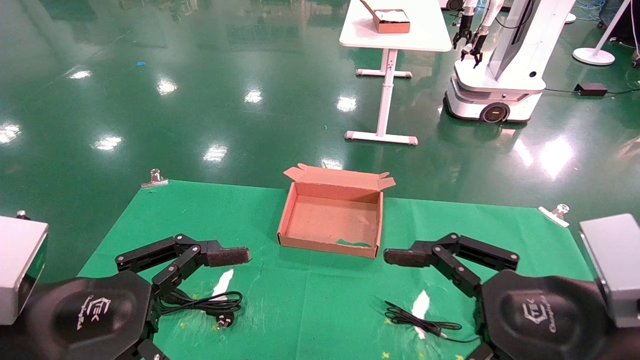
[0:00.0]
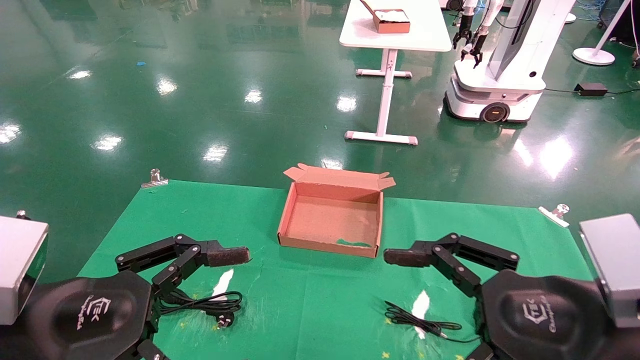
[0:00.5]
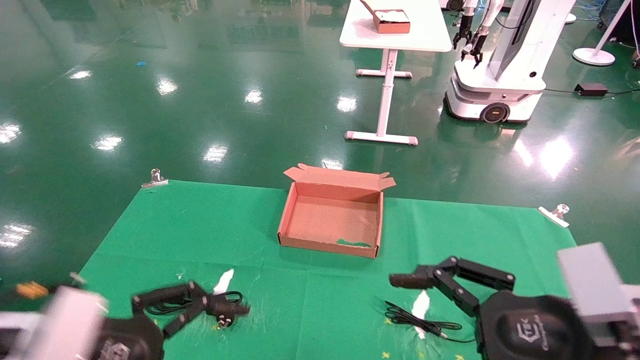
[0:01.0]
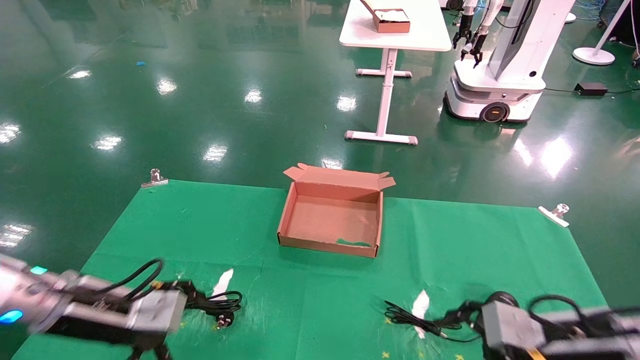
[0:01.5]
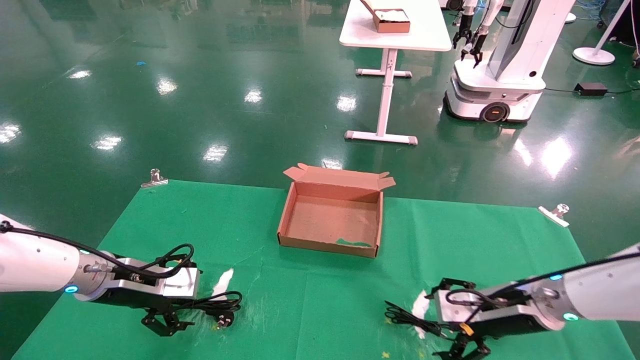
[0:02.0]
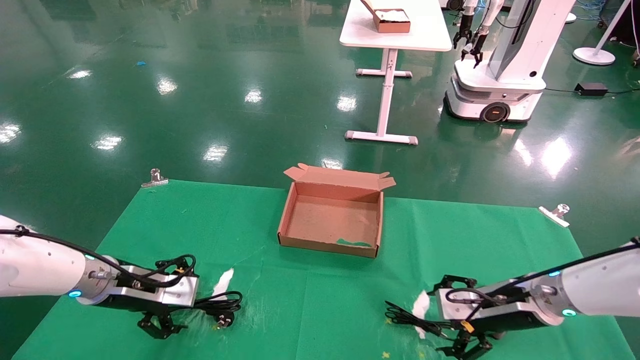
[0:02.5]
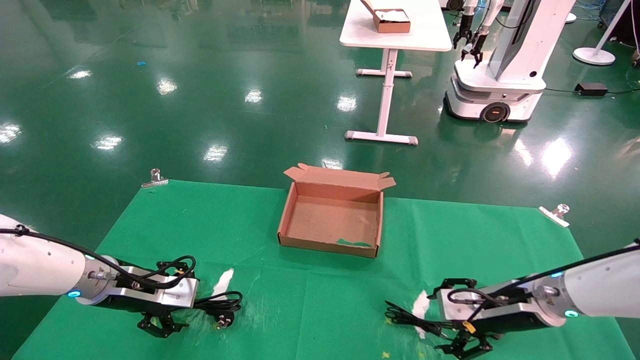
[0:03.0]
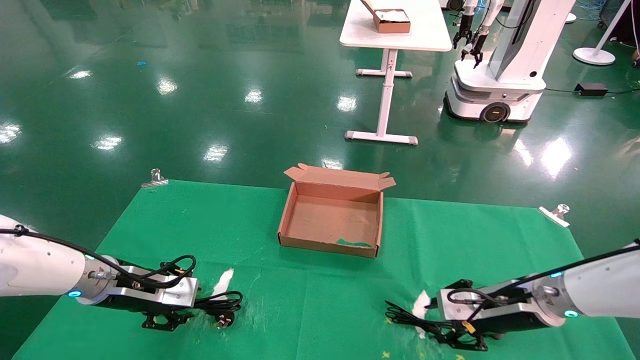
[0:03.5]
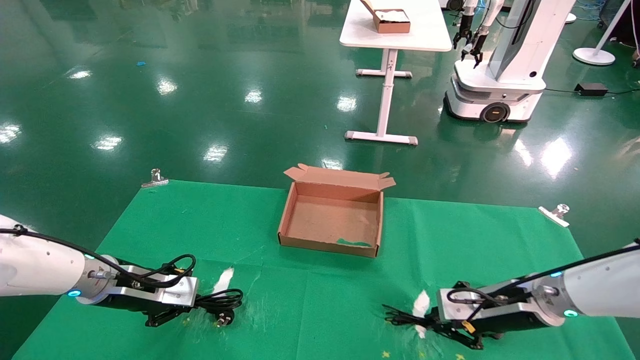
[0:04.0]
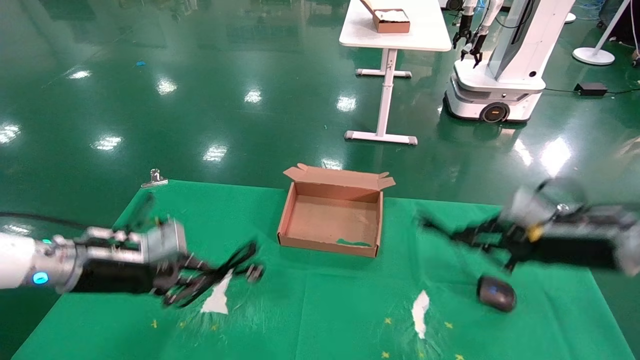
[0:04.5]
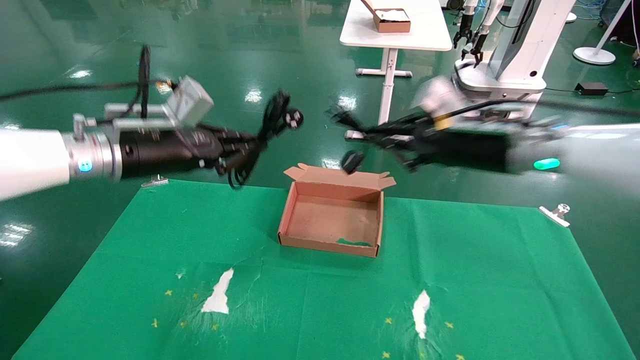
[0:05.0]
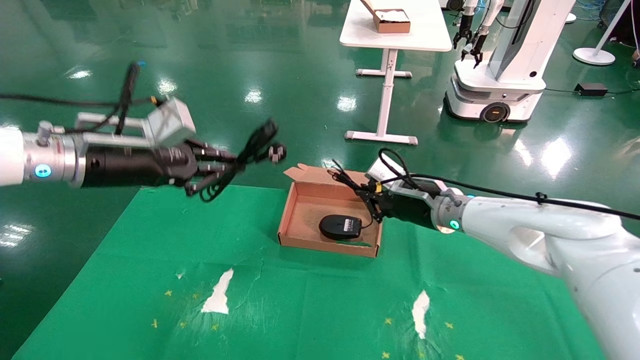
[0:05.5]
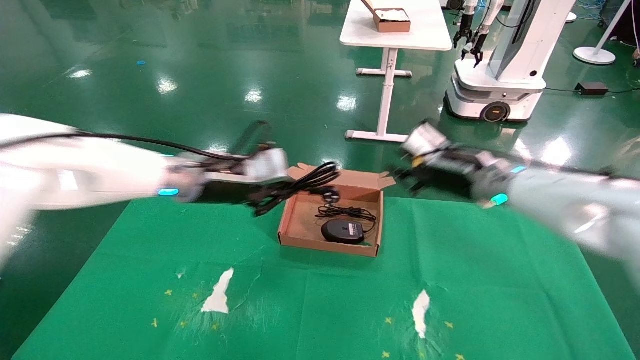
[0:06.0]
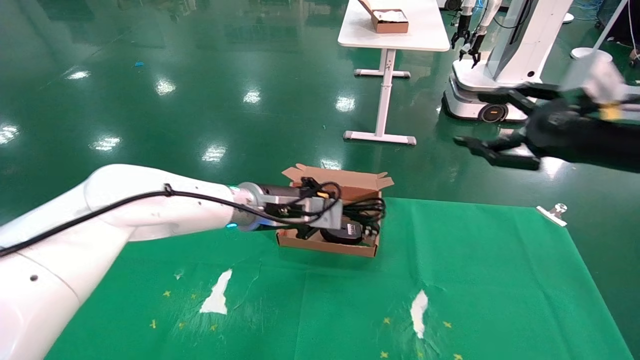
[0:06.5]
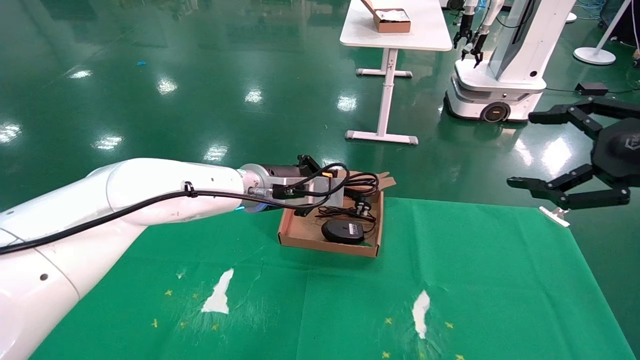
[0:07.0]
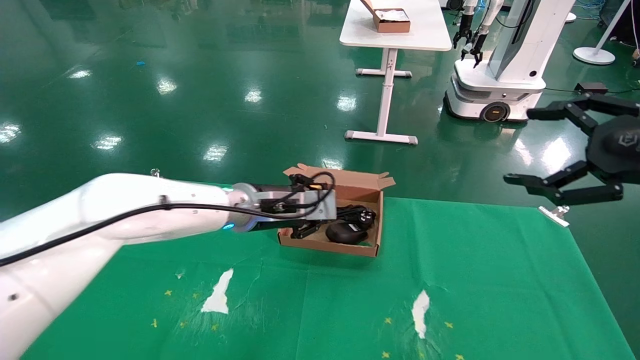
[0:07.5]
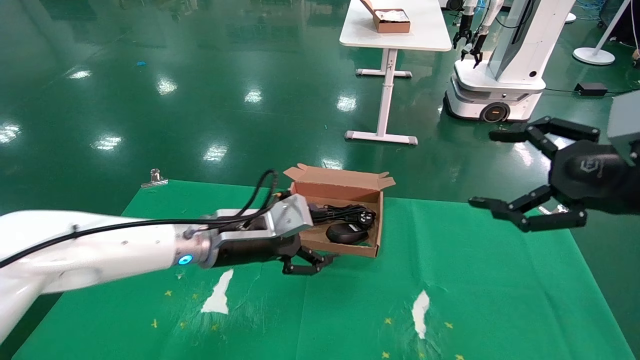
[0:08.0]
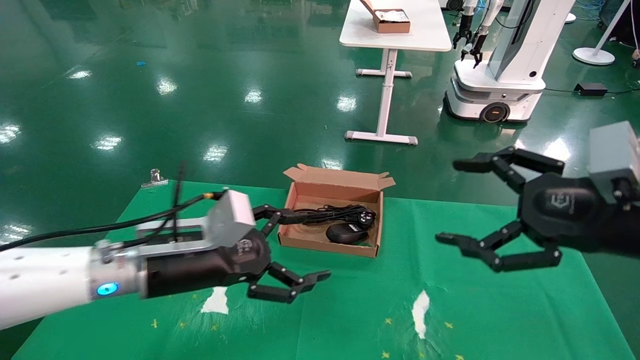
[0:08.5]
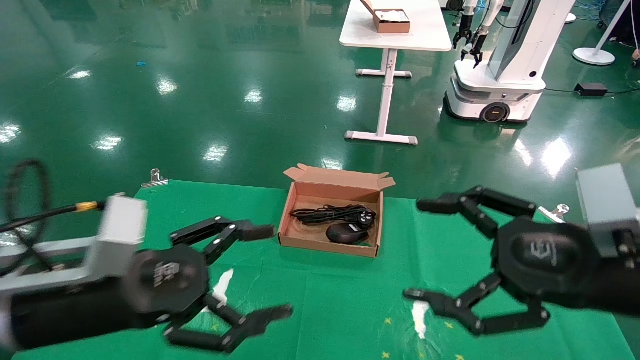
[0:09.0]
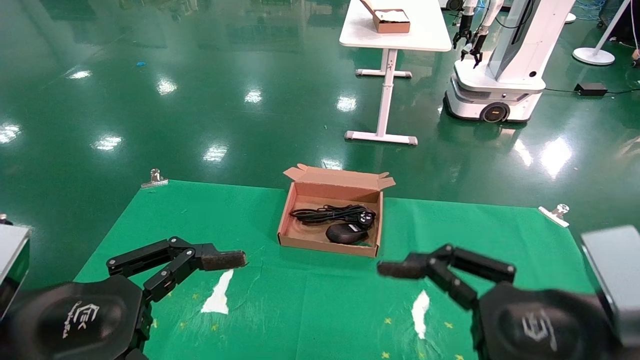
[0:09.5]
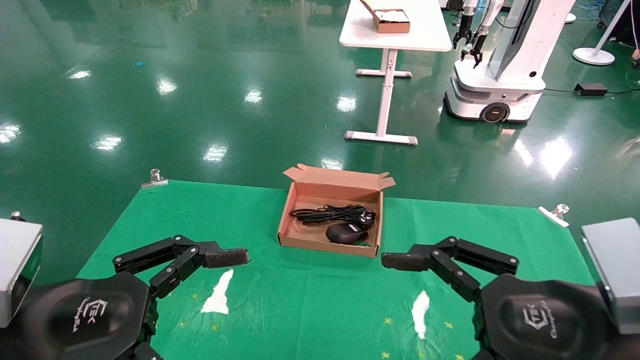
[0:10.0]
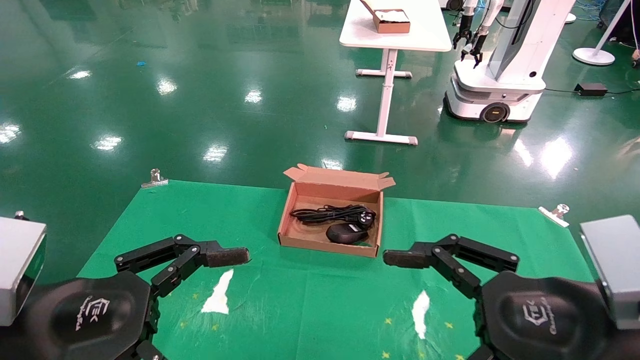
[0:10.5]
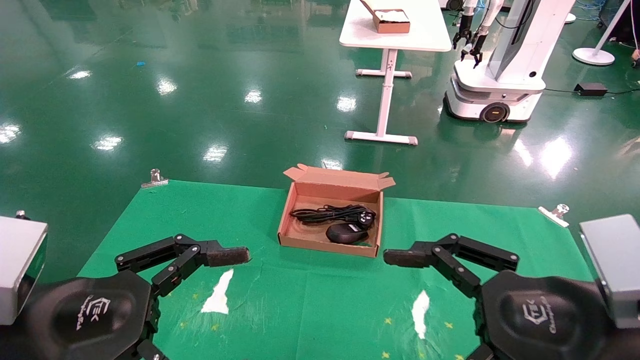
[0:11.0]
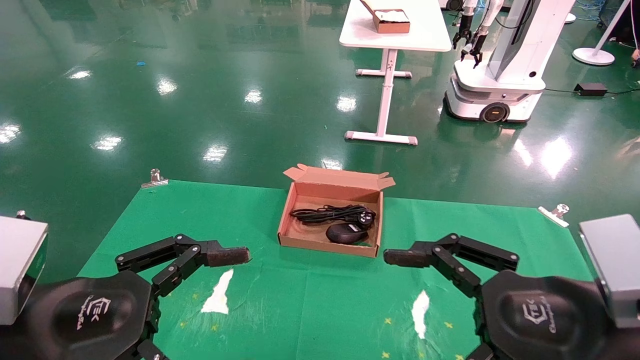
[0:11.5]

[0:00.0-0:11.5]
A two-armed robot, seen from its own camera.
Step, 0:01.0 to 0:03.5: Grab and lift both the mouse and power cord from the accessory packaging area at the same time.
Step, 0:04.0 to 0:07.5: Place the mouse and power cord into the box.
0:00.0 to 0:02.0: The left gripper is displaced forward by some 25 cm, while the right gripper goes roughly 25 cm forward and downward.
0:02.0 to 0:04.0: The right gripper closes up. The left gripper closes.
0:04.0 to 0:06.0: The left gripper shifts some 20 cm upward and to the right. Meanwhile the right gripper moves up and down over about 20 cm, changing direction 2 times.
0:06.0 to 0:07.5: The left gripper heads to the right, covering about 10 cm; the right gripper moves backward and to the right, approximately 25 cm, and opens its fingers.
0:07.5 to 0:09.5: The right gripper moves to the left, downward and backward, some 20 cm. Meanwhile the left gripper moves backward and to the left, approximately 30 cm, and opens its fingers.
0:09.5 to 0:11.5: Both grippers stay about where they are.

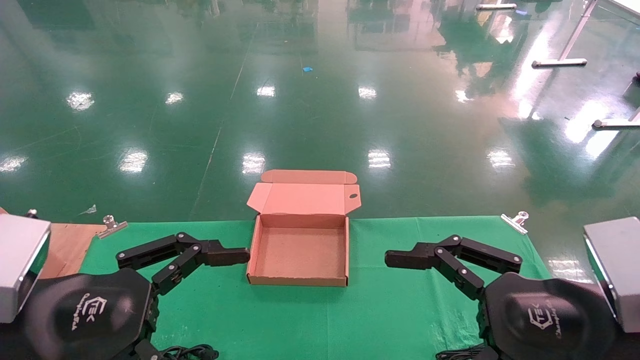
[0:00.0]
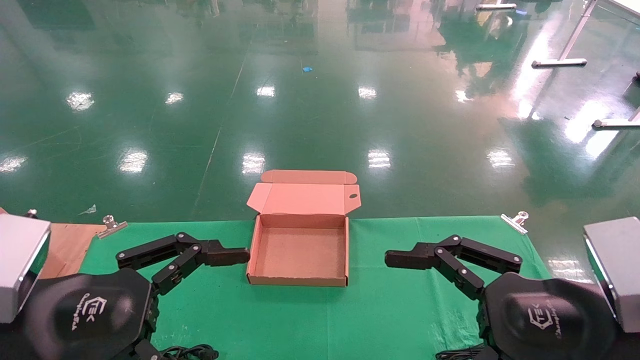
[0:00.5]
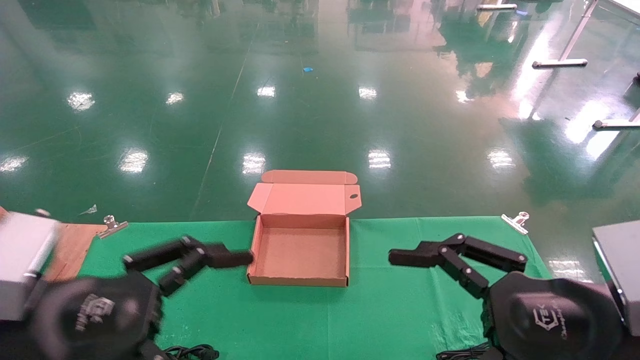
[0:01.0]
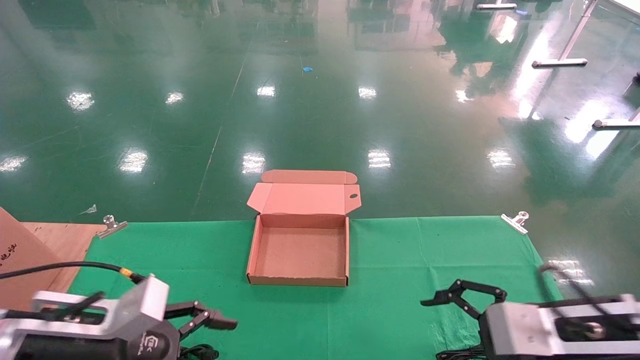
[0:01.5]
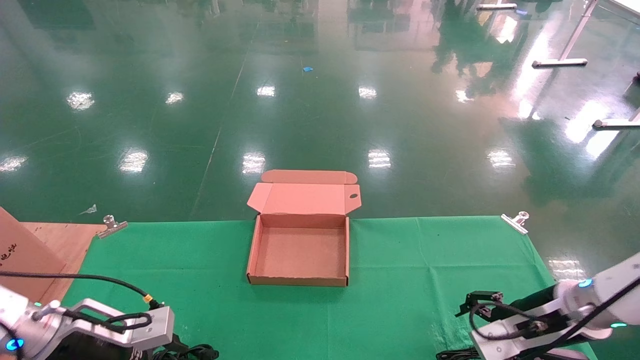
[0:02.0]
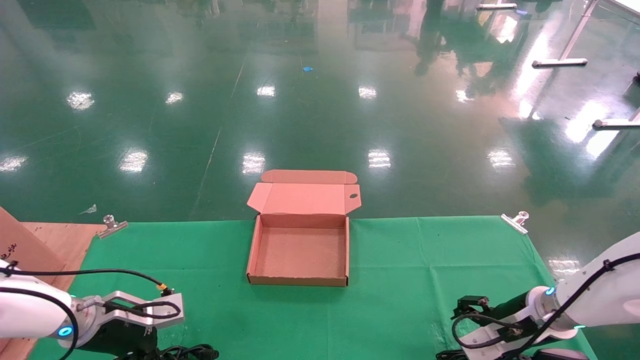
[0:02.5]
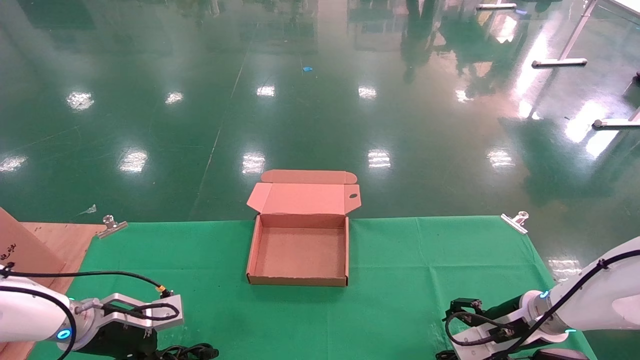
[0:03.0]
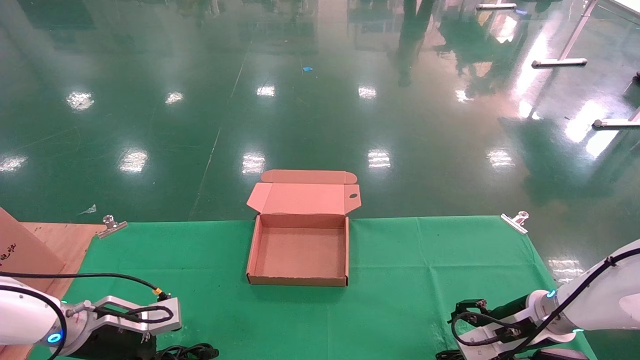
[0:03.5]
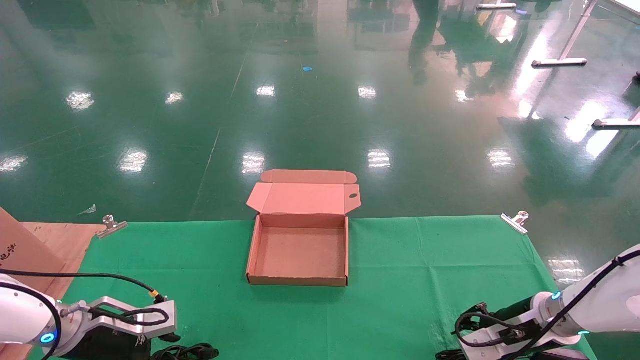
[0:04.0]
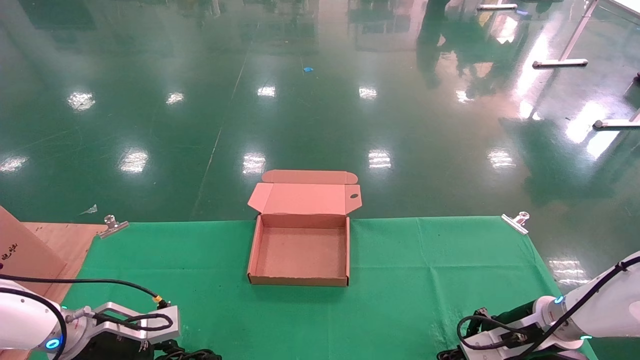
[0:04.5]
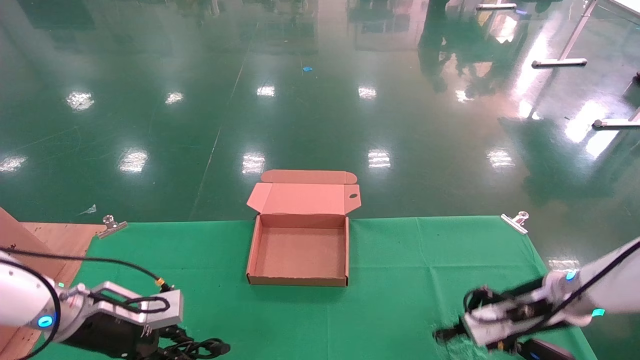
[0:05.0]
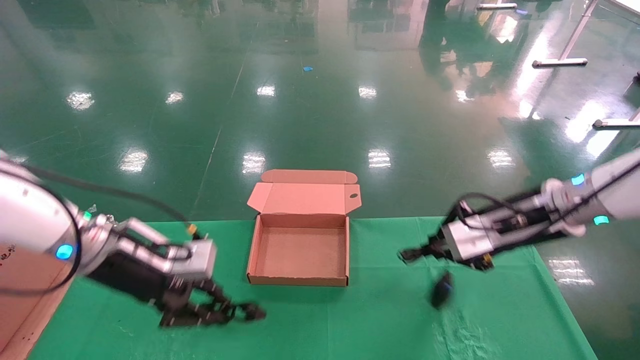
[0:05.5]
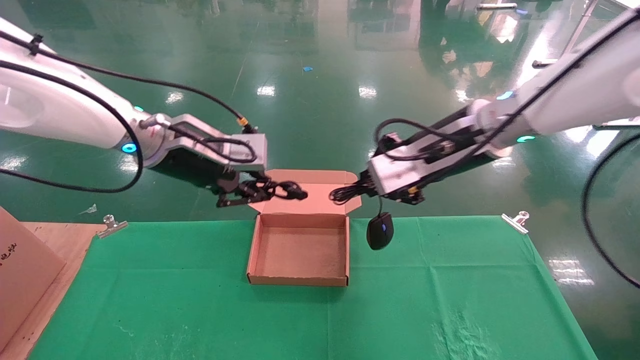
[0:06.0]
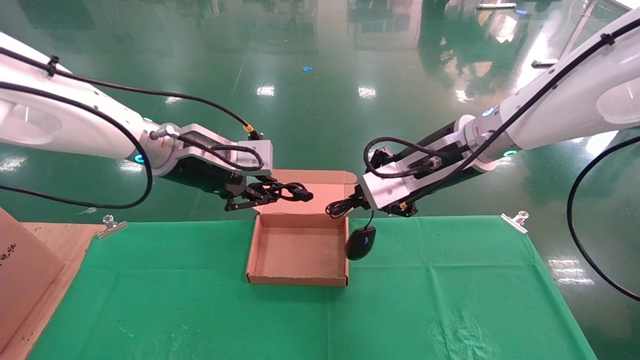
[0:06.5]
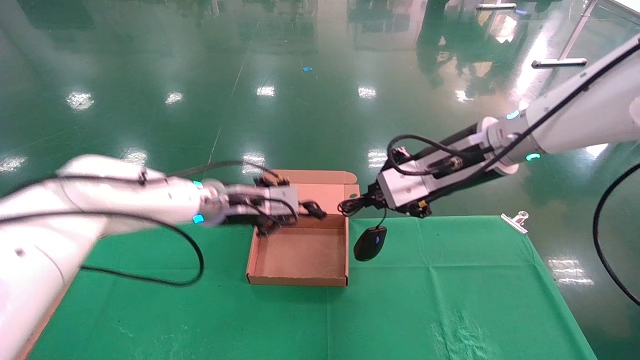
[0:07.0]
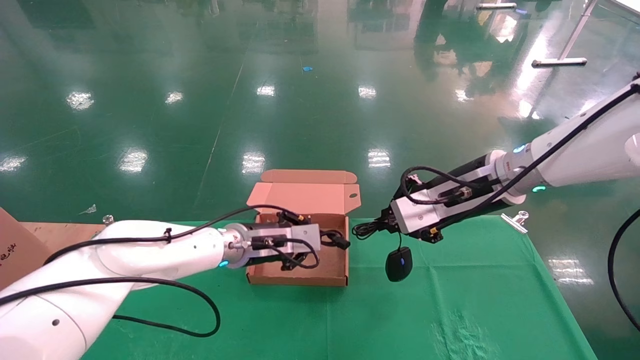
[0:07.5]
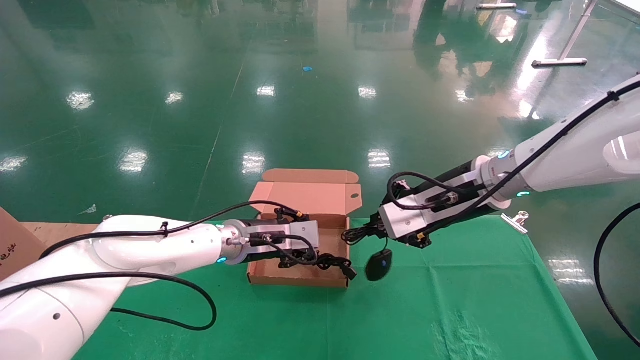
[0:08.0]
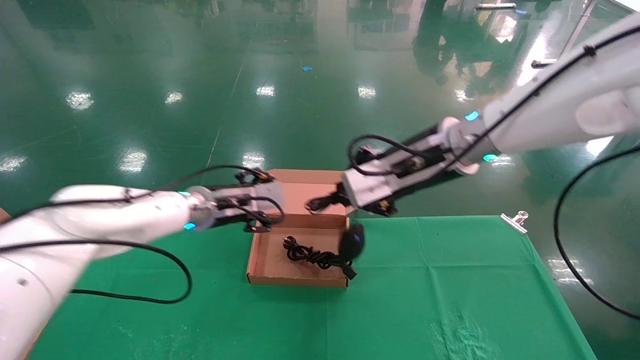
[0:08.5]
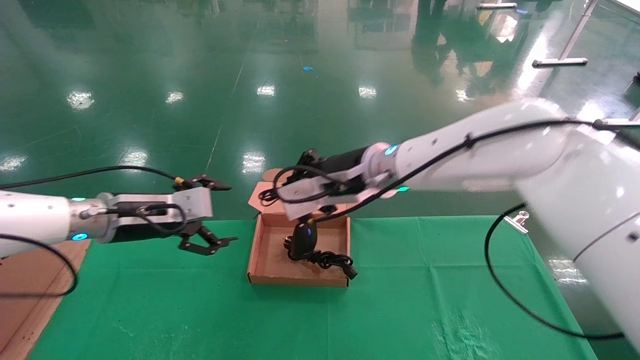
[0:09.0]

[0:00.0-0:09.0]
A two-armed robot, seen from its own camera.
Step, 0:01.0 to 0:05.0: Grab and lift both the mouse and power cord from the accessory packaging area at the same time.
0:00.0 to 0:02.0: Both grippers travel together forward and downward, about 20 cm.
0:02.0 to 0:04.5: The left gripper ends up about 5 cm from where it was, and closes. The right gripper goes approximately 5 cm downward, and closes.
0:04.5 to 0:07.0: The left gripper moves to the right, upward and forward, some 30 cm. Meanwhile the right gripper is displaced upward and to the left by about 30 cm.
0:07.0 to 0:09.0: Both grippers move to the left, approximately 15 cm. The left gripper opens up.
